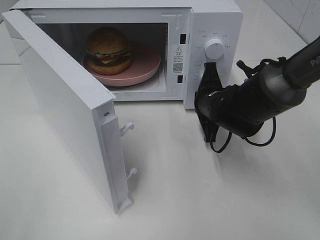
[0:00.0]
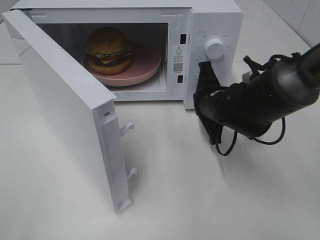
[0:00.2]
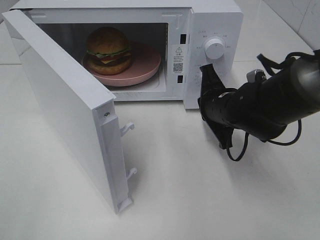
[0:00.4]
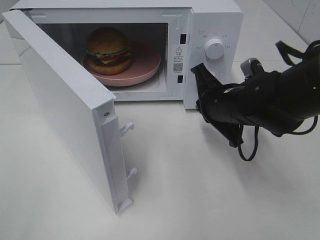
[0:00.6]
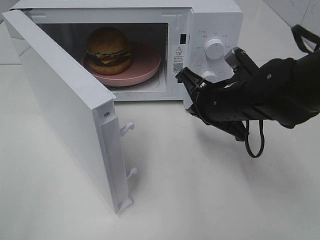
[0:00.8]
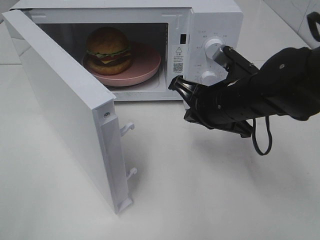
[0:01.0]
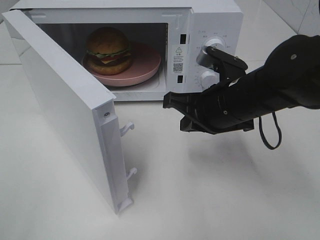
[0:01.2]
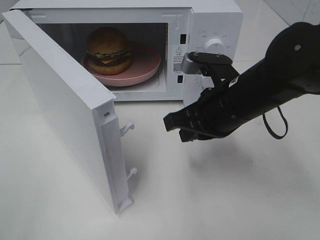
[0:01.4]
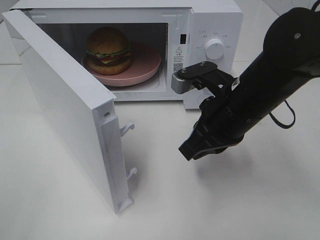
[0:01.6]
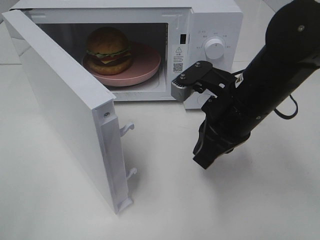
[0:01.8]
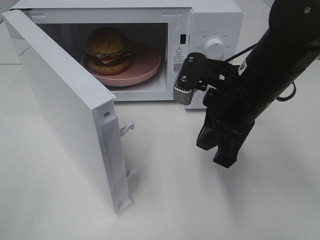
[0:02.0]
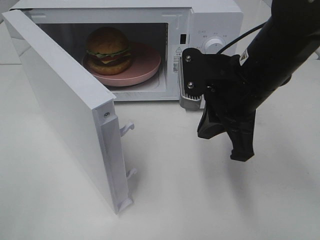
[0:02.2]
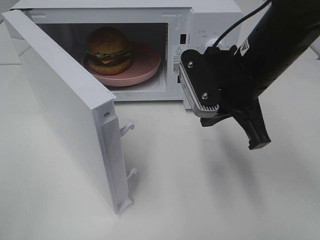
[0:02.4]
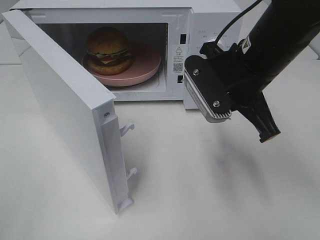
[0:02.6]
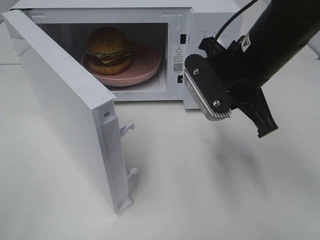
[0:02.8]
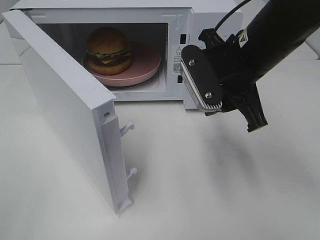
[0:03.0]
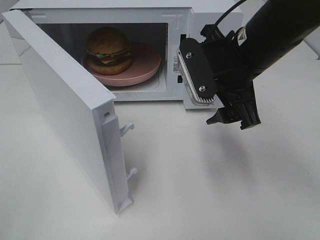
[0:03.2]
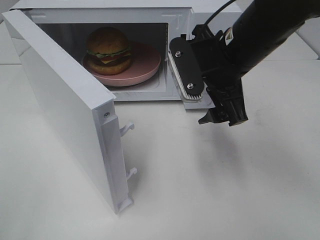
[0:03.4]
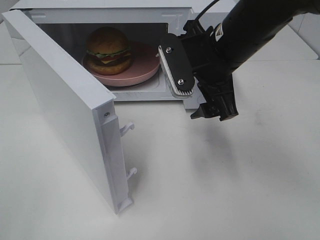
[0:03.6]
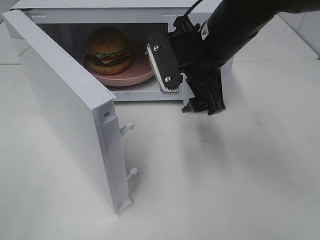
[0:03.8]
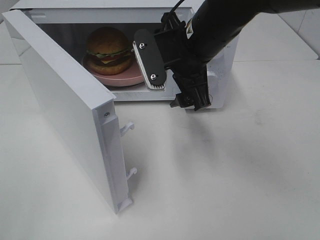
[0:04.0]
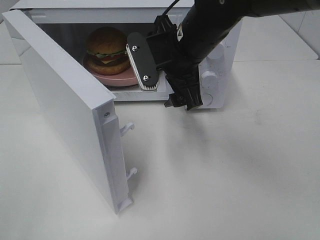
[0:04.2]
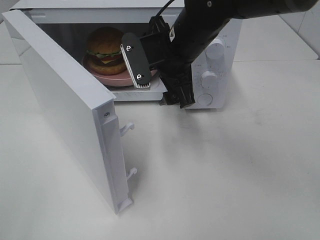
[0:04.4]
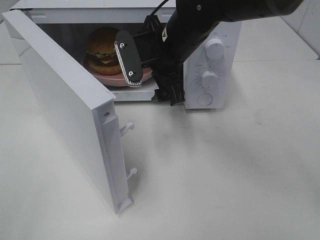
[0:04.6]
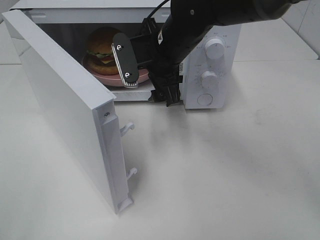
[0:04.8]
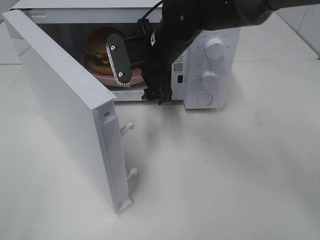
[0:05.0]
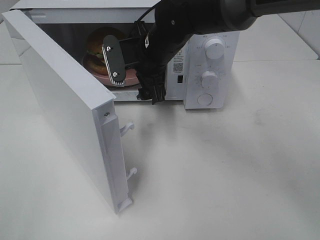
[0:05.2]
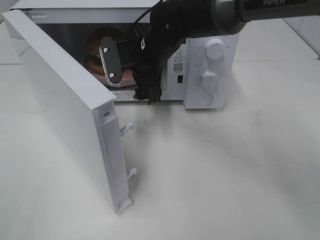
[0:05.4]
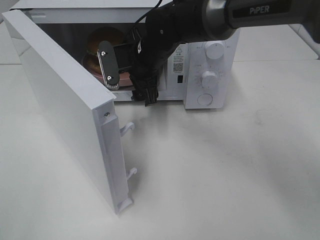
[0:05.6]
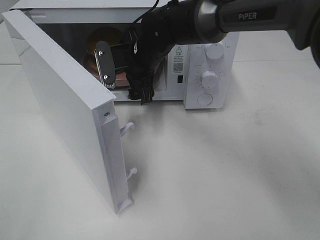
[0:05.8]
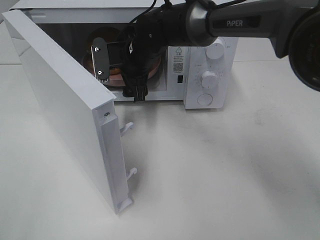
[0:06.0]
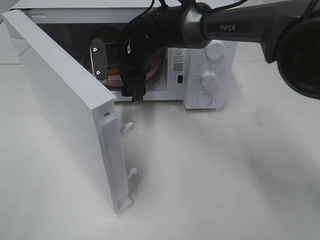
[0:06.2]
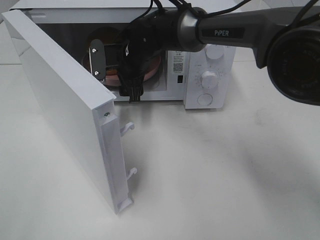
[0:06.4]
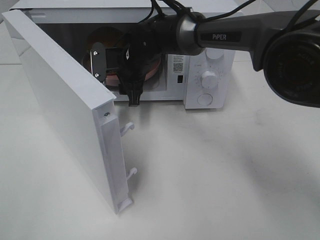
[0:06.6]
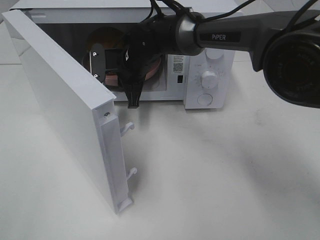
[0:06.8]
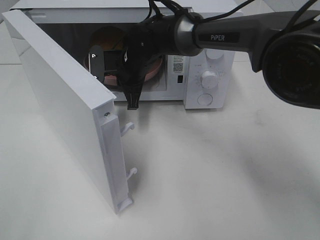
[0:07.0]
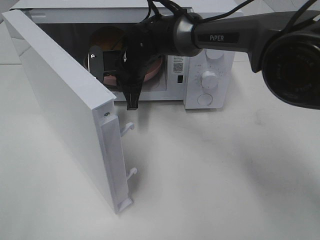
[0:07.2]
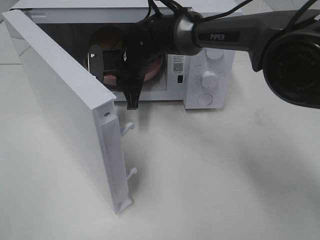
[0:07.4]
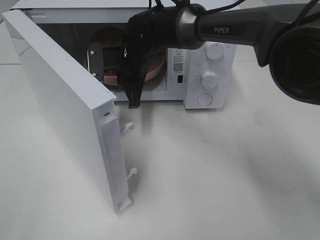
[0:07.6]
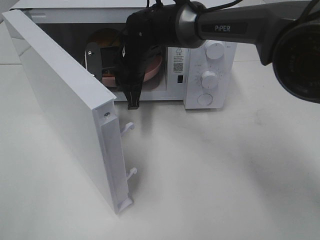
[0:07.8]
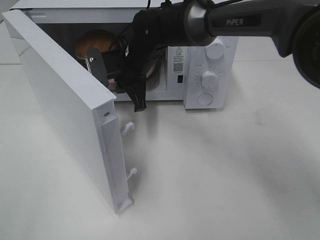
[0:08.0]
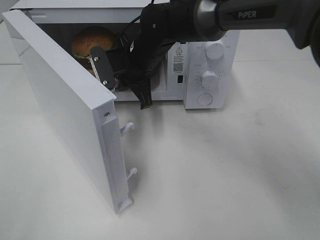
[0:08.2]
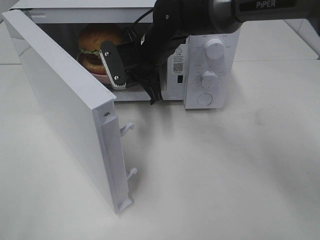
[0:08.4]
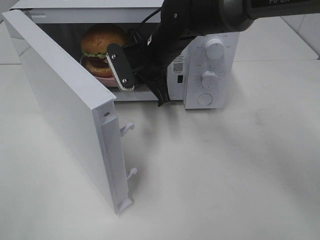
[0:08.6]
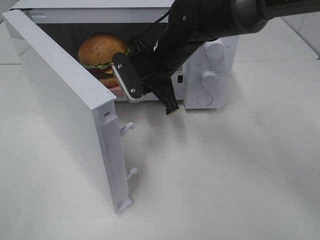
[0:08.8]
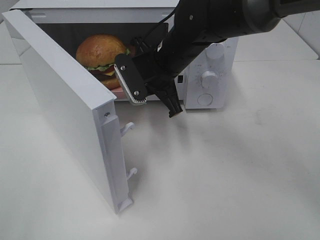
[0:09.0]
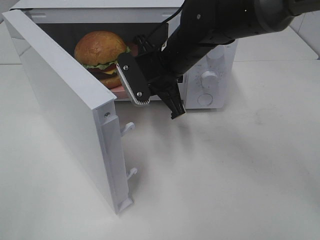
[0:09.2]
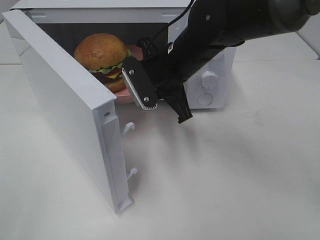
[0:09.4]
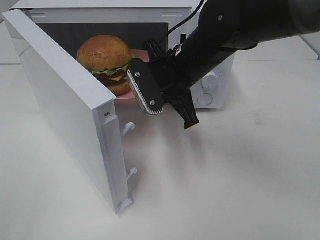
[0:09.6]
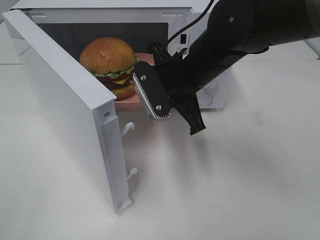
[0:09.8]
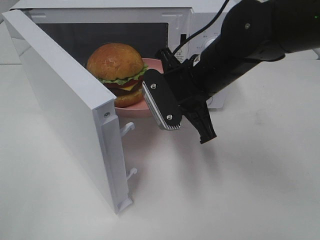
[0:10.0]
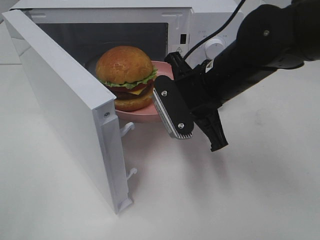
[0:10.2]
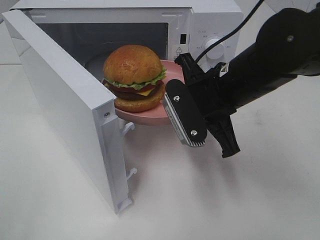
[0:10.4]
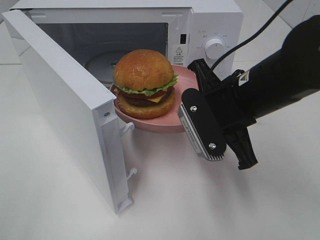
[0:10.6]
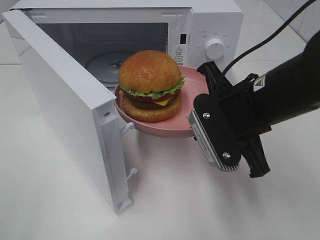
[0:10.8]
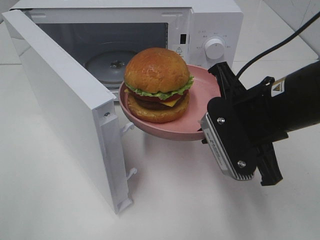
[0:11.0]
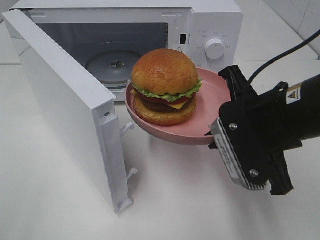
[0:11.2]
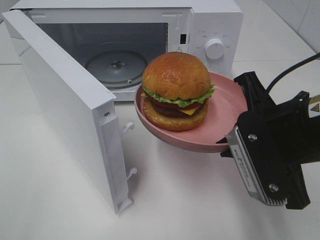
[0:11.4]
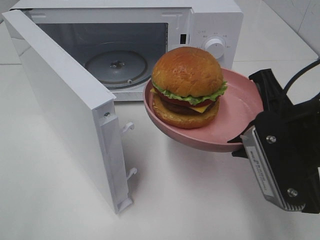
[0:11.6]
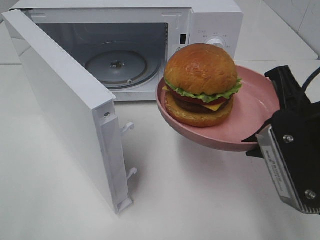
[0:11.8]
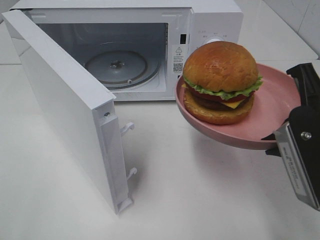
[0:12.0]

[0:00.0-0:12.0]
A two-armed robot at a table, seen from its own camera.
Task of the whole recording: Heat the burger.
Step, 0:00.2 to 0:06.8: Right hand: grab the plate with the hamburger.
0:00.0 to 0:01.6: The right gripper travels backward and upward by about 15 cm.
0:01.6 to 0:03.0: The right gripper shifts about 5 cm upward, and opens up.
0:03.0 to 0:04.4: The right gripper heads to the left and forward, covering about 10 cm, and opens up.
0:04.4 to 0:06.0: The right gripper is displaced forward, to the left and downward by some 10 cm.
0:06.0 to 0:07.6: The right gripper closes its fingers.
0:07.6 to 0:09.0: The right gripper travels to the right and backward by approximately 10 cm.
0:09.0 to 0:10.4: The right gripper travels backward and to the right by roughly 15 cm.
0:10.4 to 0:12.0: The right gripper goes roughly 15 cm backward and to the right.

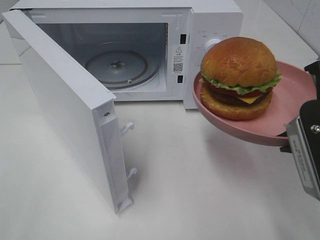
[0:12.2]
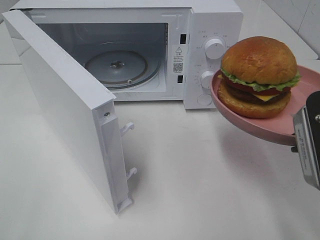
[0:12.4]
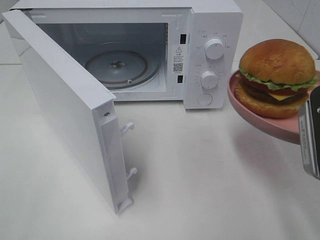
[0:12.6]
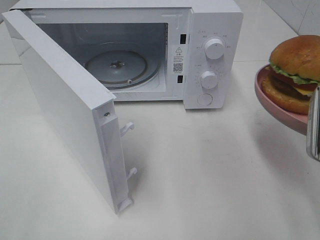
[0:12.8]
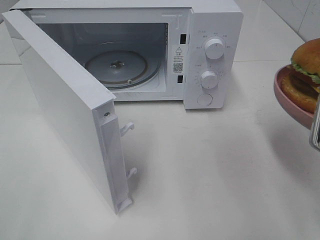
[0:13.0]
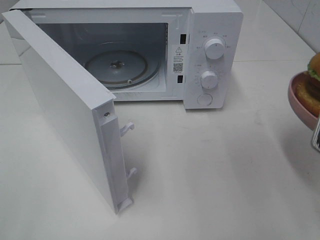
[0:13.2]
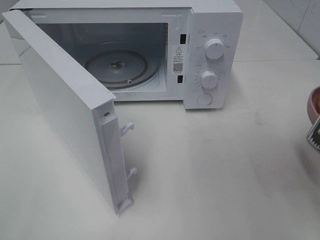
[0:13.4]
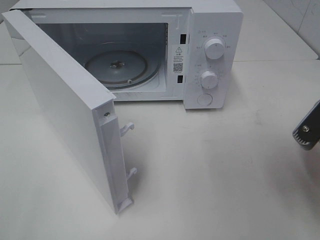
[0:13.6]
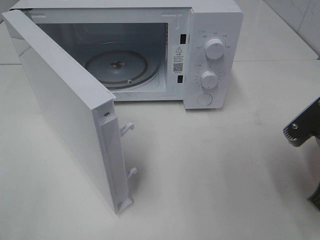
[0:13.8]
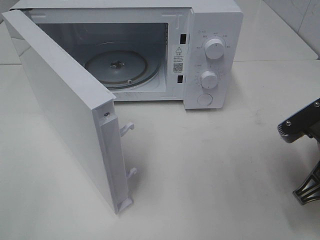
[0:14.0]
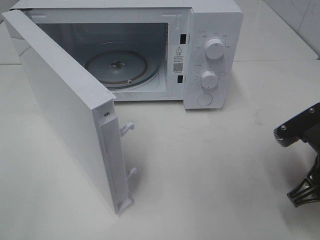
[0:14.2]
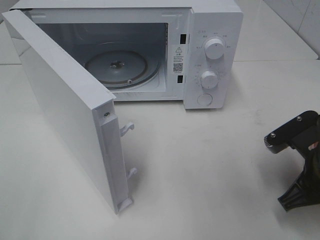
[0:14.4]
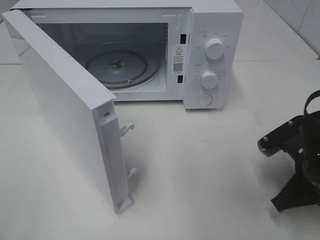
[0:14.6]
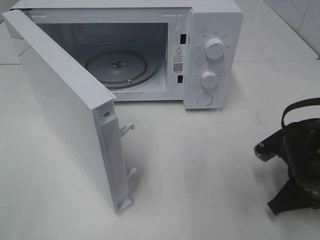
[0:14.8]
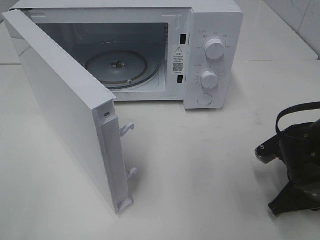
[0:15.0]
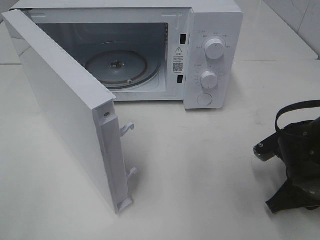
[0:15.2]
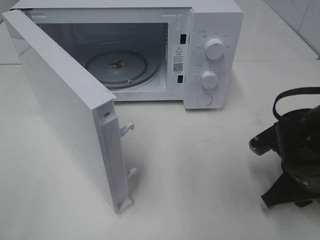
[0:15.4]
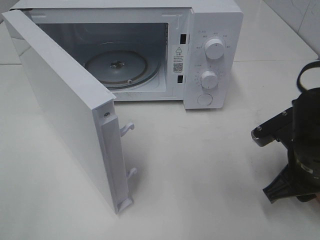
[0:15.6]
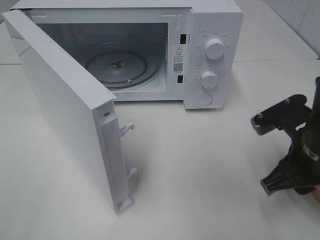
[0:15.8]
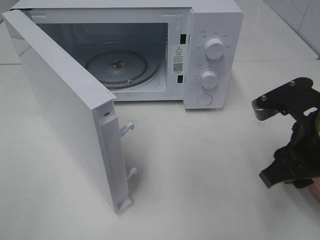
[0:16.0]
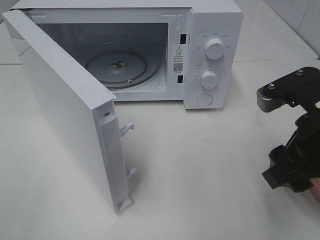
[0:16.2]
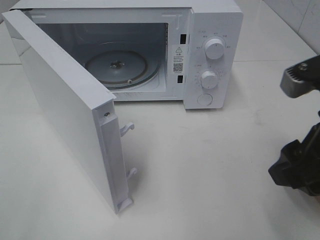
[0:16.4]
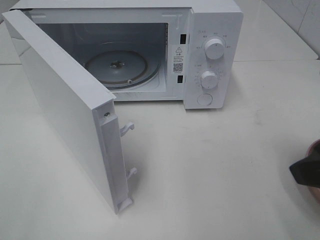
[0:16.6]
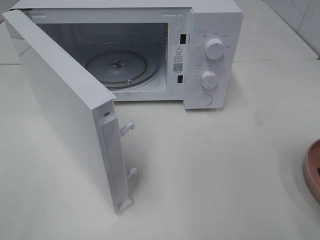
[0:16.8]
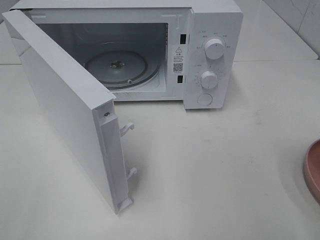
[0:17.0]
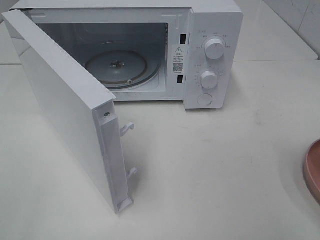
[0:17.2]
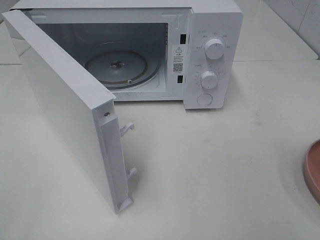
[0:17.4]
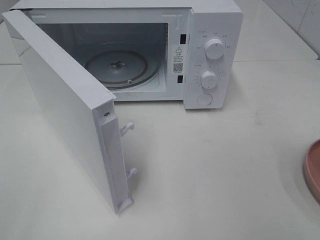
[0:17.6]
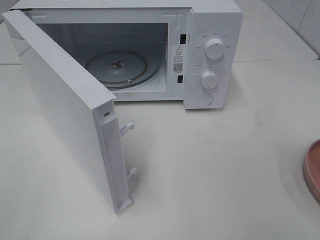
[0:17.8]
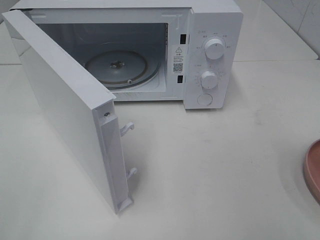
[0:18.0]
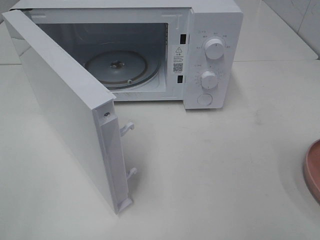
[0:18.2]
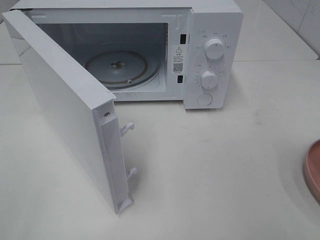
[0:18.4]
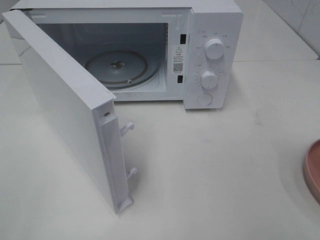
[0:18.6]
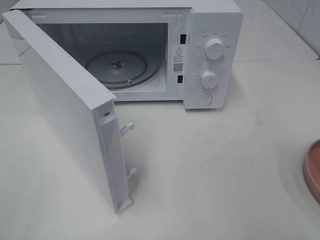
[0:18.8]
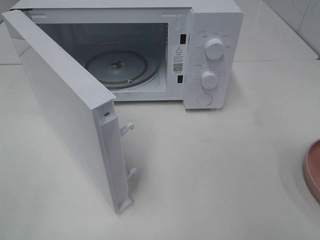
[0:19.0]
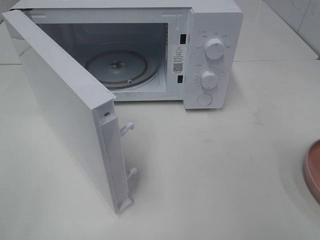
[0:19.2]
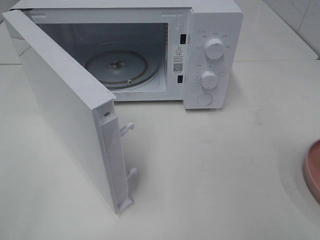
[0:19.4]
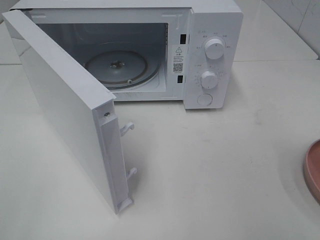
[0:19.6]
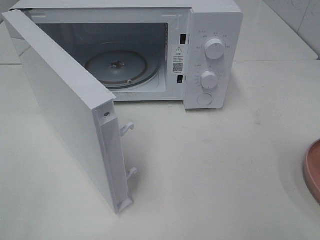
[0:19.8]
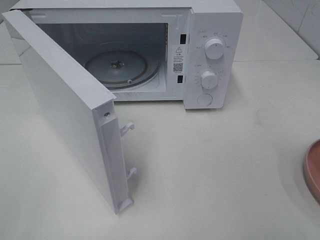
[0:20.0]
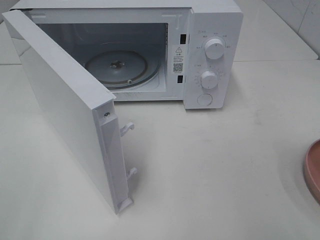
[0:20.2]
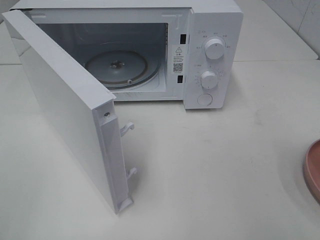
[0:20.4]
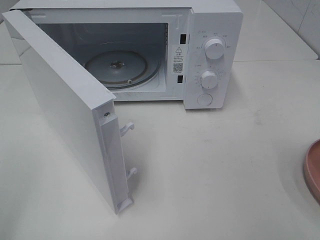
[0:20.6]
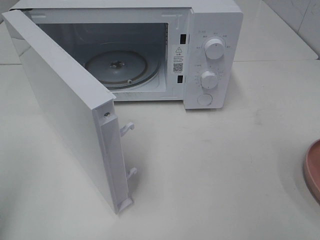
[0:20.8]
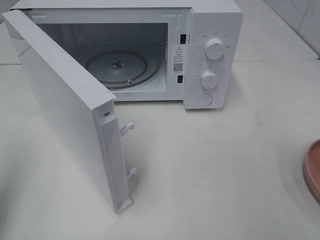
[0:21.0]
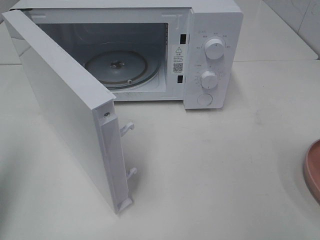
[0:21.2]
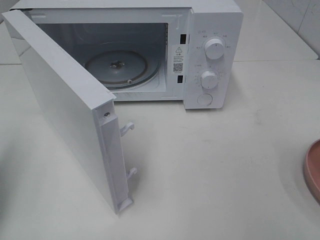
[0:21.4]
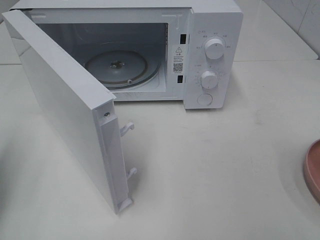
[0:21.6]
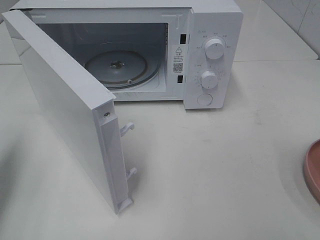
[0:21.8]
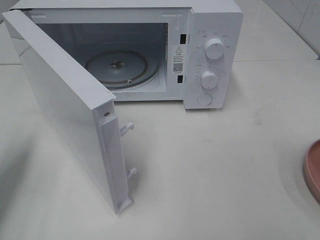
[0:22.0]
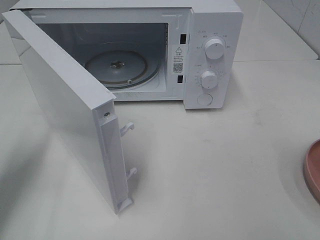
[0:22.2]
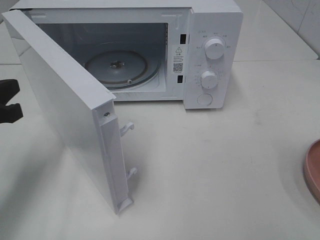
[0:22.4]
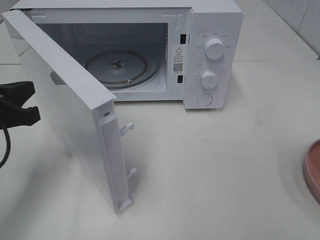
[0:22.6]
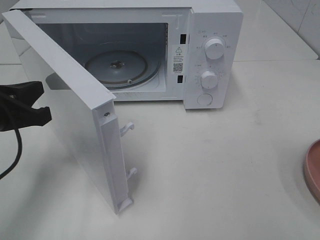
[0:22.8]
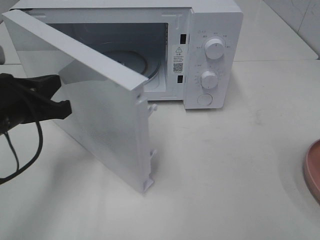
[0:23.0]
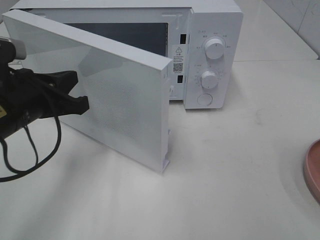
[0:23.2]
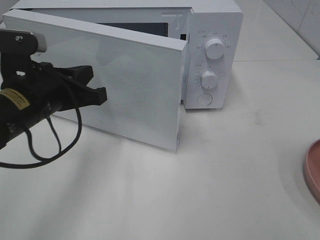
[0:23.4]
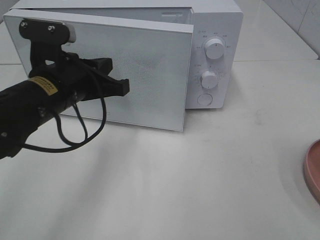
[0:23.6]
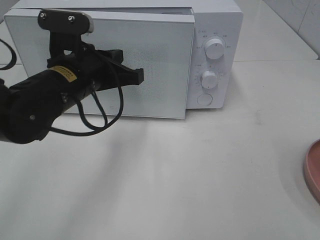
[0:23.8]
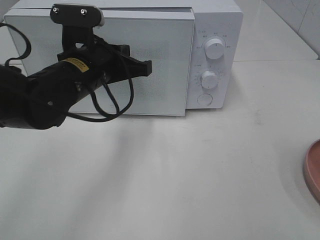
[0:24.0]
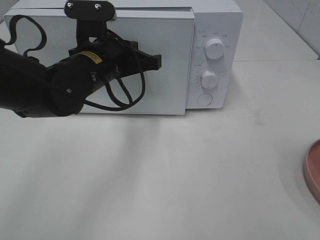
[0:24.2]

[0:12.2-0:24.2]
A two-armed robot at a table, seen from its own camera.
Task of the whole recording: Heat the burger.
Step, 0:12.2 to 0:15.4: Right hand: place the plate on the table.
0:12.2 to 0:13.8: The right gripper goes roughly 5 cm downward.
0:13.8 to 0:15.2: The right gripper shifts about 10 cm downward.
0:15.2 to 0:16.6: The right gripper goes roughly 20 cm upward and backward, and opens up.
0:16.6 to 0:18.2: The right gripper is displaced backward and to the right by some 15 cm.
0:18.2 to 0:19.8: The two grippers keep their place.
0:19.8 to 0:21.2: The left gripper goes roughly 15 cm forward, and closes.
0:21.2 to 0:22.6: The left gripper heads downward, forward and to the right, covering roughly 15 cm.
0:22.6 to 0:24.2: The left gripper is displaced to the right and forward by some 20 cm.
